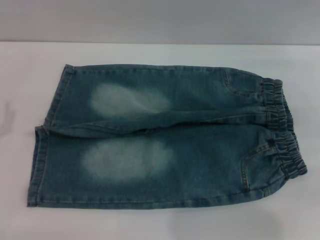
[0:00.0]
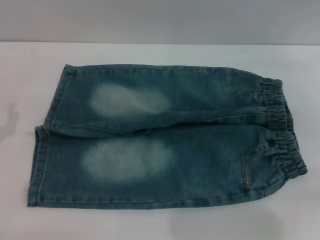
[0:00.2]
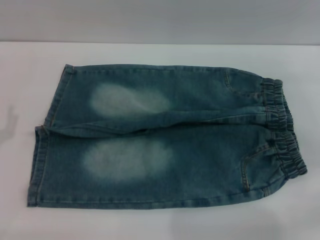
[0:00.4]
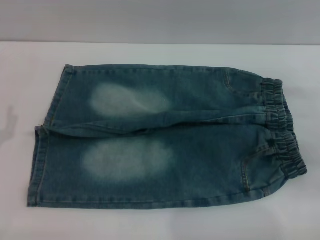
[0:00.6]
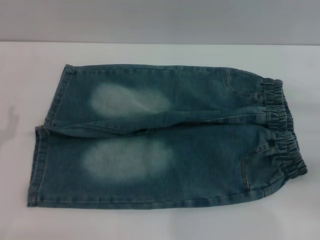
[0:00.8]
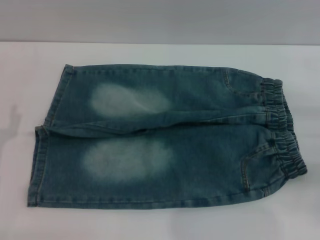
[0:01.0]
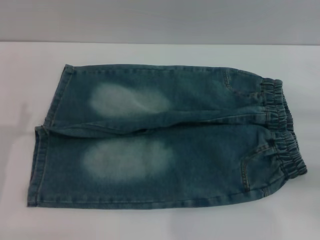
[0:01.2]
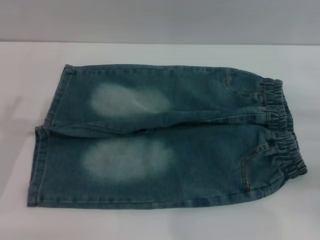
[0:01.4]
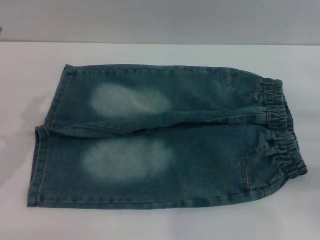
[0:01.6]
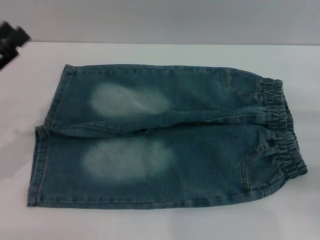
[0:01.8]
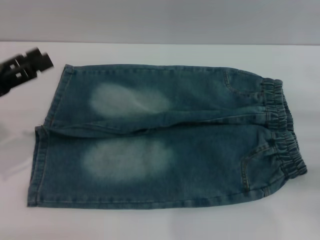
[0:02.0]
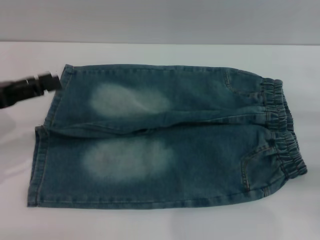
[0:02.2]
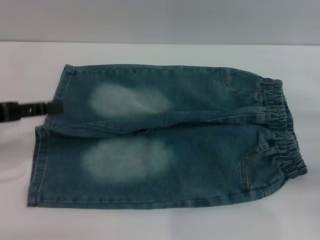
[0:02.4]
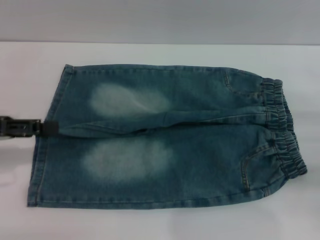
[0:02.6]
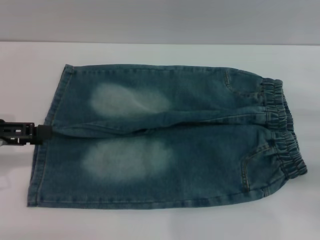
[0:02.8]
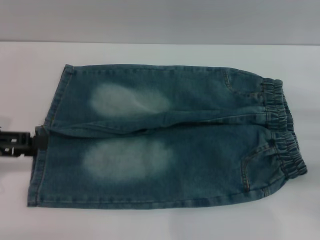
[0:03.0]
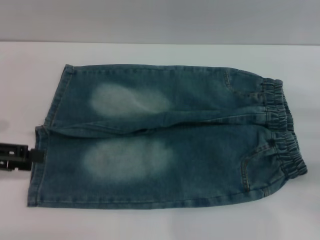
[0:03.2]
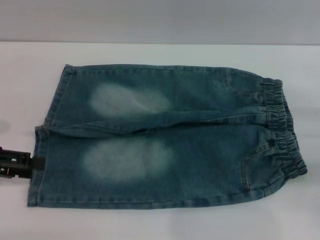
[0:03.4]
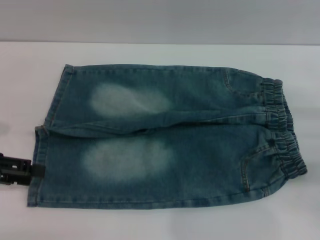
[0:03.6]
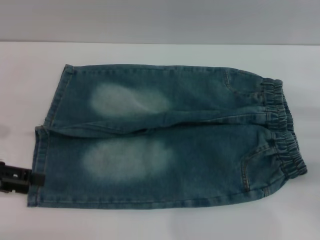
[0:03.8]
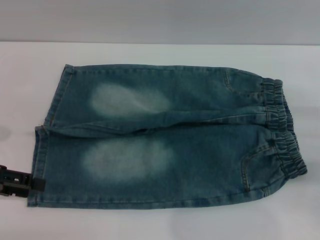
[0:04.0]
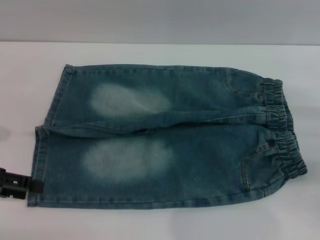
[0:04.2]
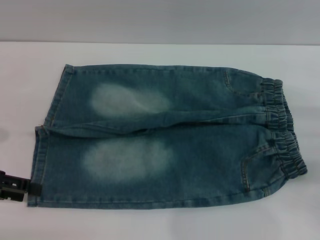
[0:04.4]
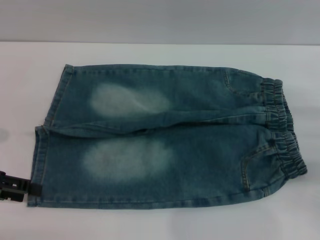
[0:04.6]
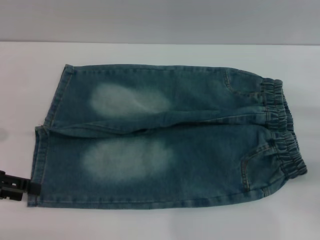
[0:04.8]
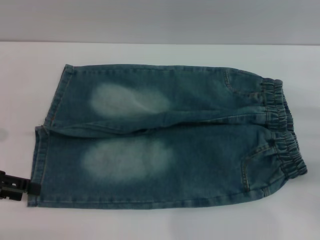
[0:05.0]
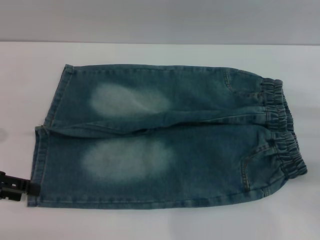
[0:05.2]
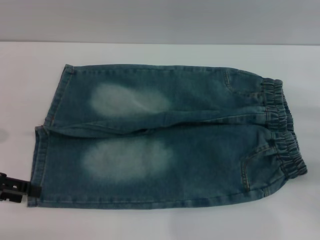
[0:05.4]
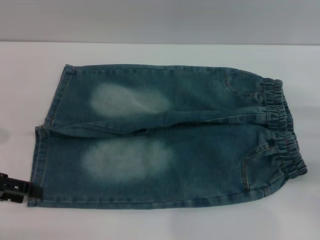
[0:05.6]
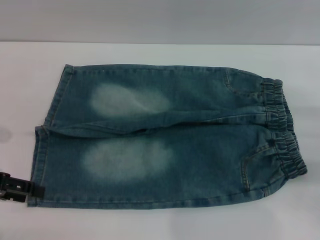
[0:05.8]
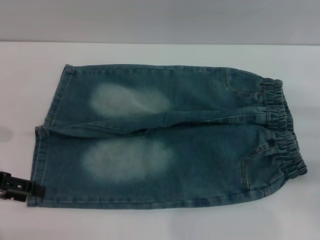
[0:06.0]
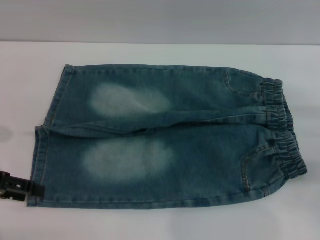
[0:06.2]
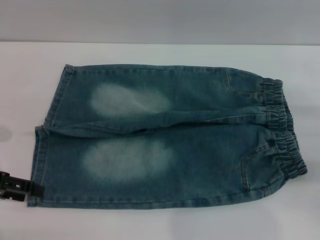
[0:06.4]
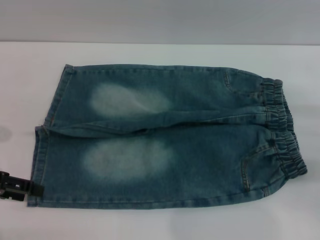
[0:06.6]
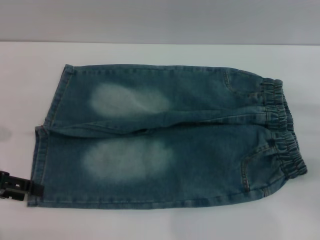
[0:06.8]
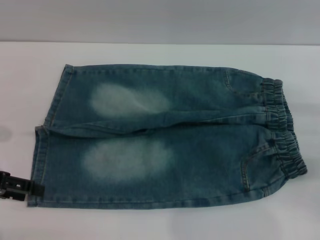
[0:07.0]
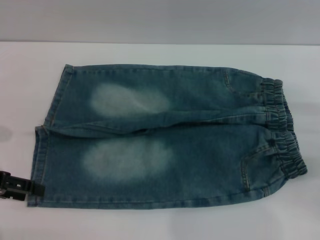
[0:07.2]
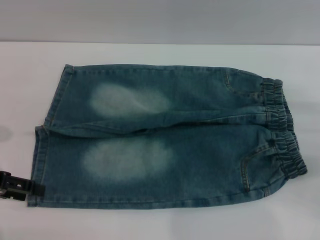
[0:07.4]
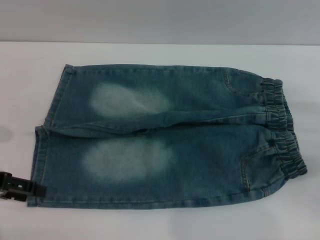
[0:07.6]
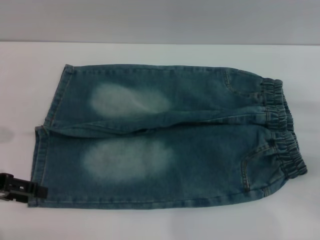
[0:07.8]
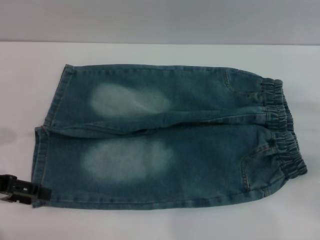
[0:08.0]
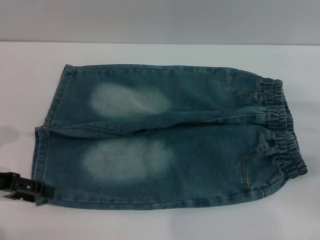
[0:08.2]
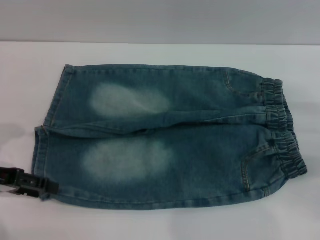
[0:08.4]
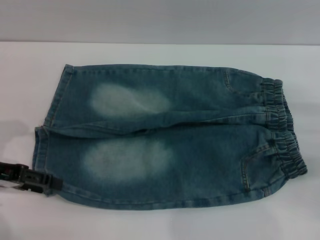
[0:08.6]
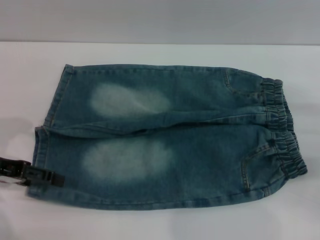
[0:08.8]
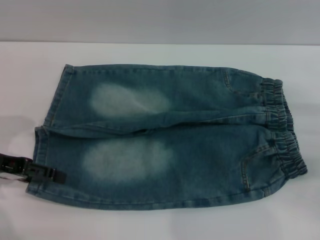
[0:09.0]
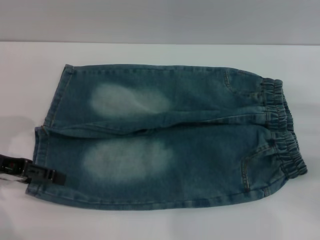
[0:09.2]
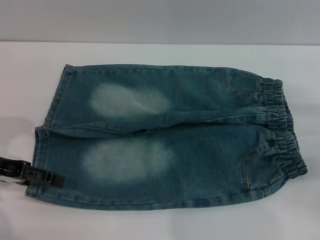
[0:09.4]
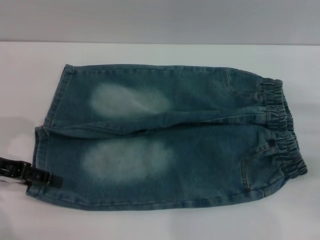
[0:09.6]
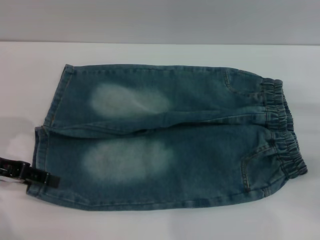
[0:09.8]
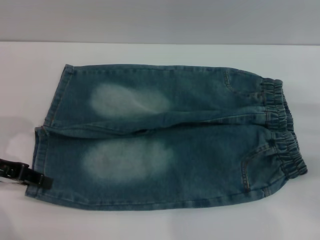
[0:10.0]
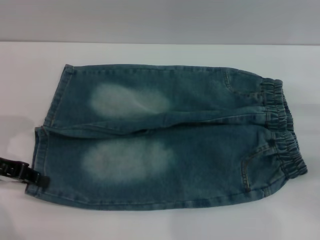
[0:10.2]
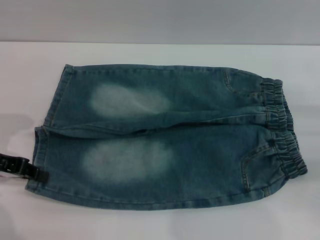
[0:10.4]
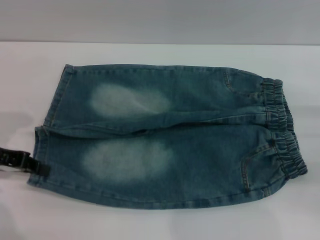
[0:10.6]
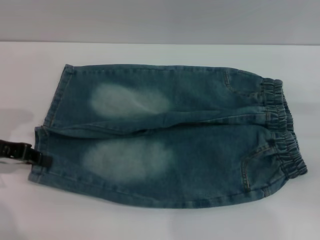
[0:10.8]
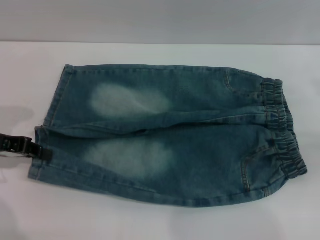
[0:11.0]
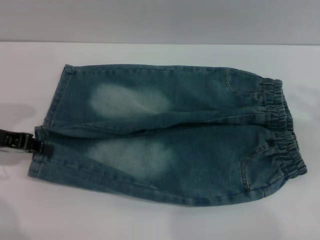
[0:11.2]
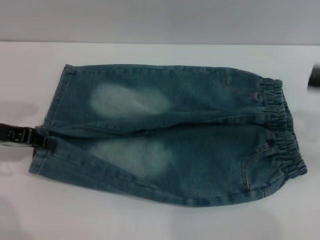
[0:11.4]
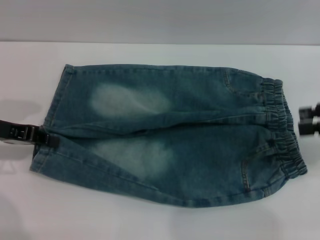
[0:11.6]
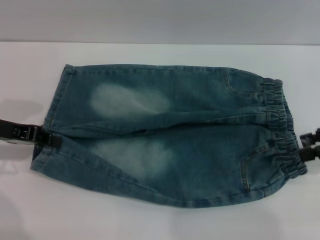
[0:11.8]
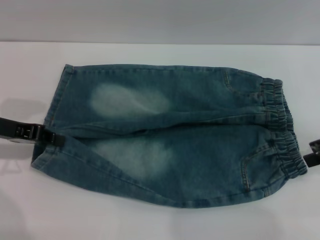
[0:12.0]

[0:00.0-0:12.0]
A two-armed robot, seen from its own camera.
Step, 0:00.0 to 0:10.4: Grasp the lower left leg of the shorts with left gripper.
0:00.0 to 0:01.6: The right gripper is displaced backward and downward by about 15 cm.
0:01.6 to 0:03.0: The left gripper moves roughly 5 cm.
0:03.0 to 0:04.4: There are only small adjustments of the grippers.
0:04.4 to 0:07.6: The two grippers keep their place.
0:07.6 to 0:09.0: The grippers stay close to where they were, moving slightly.
0:09.0 to 0:10.4: The left gripper closes its fingers.
0:10.4 to 0:12.0: The right gripper heads upward, covering some 10 cm.

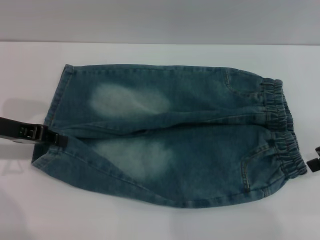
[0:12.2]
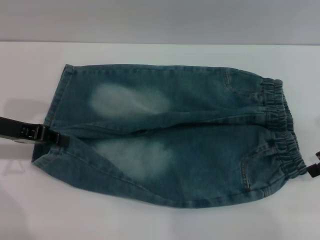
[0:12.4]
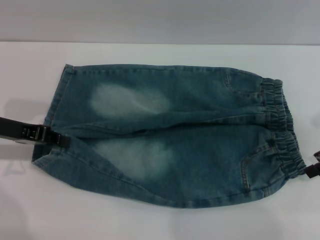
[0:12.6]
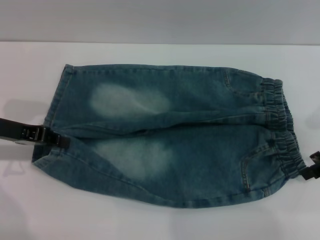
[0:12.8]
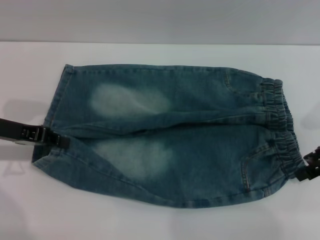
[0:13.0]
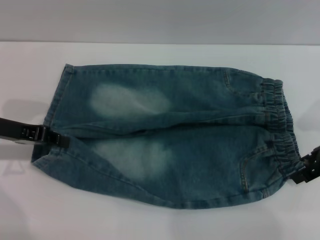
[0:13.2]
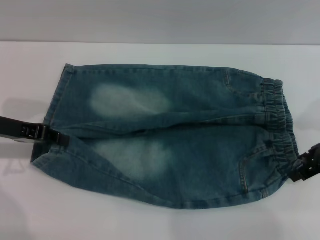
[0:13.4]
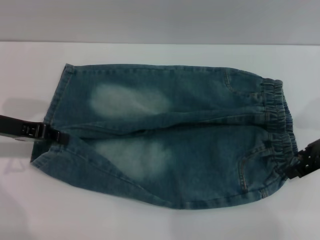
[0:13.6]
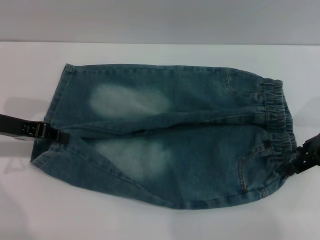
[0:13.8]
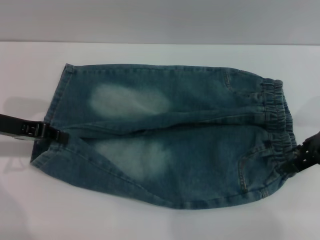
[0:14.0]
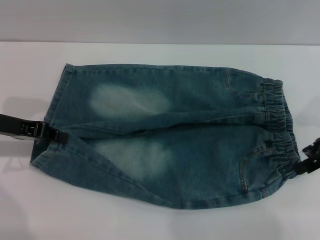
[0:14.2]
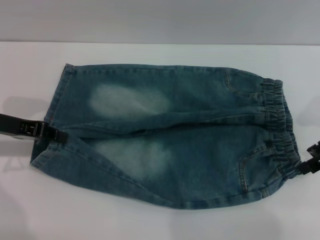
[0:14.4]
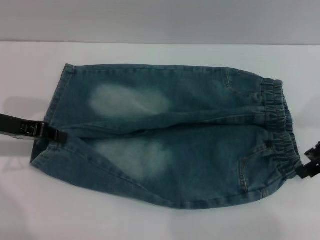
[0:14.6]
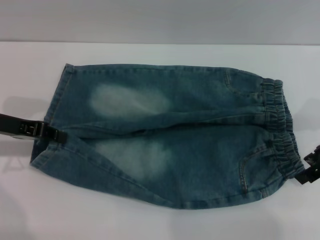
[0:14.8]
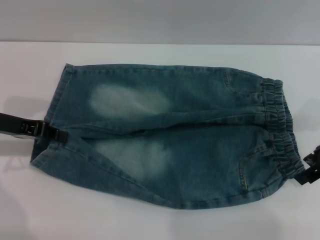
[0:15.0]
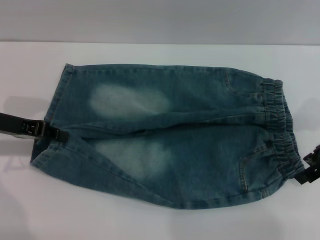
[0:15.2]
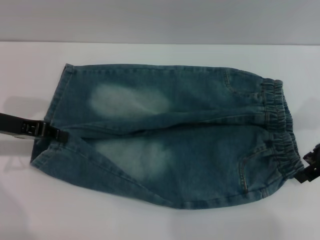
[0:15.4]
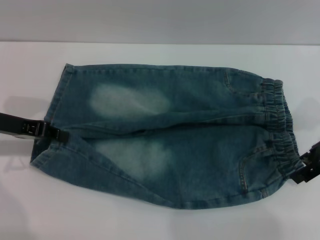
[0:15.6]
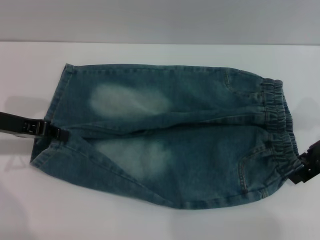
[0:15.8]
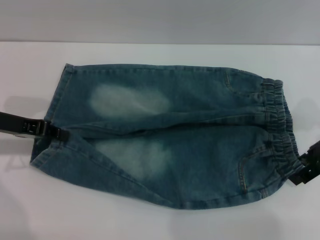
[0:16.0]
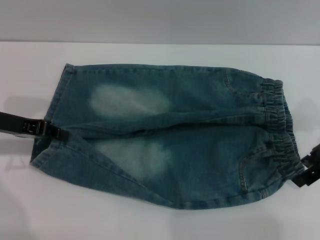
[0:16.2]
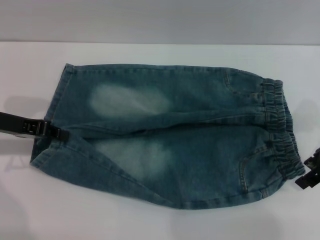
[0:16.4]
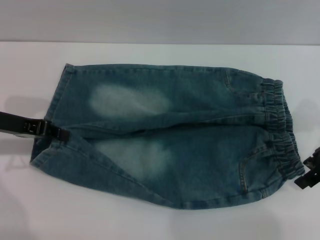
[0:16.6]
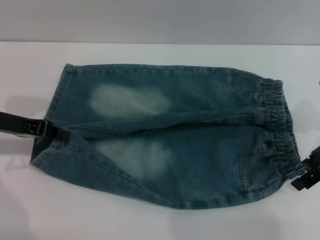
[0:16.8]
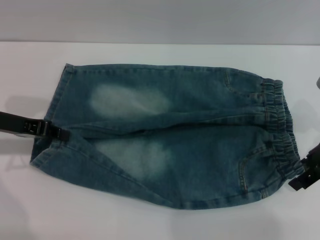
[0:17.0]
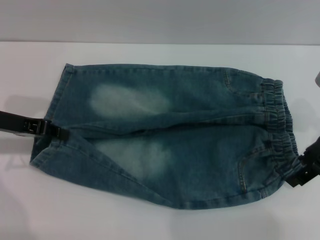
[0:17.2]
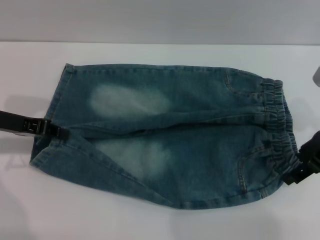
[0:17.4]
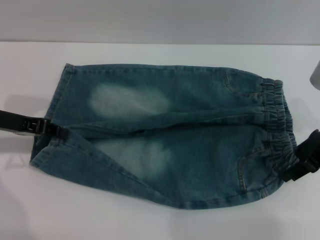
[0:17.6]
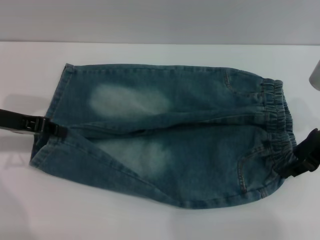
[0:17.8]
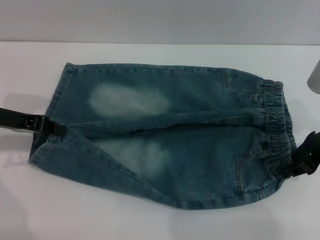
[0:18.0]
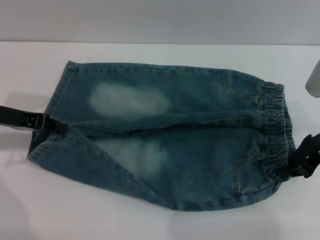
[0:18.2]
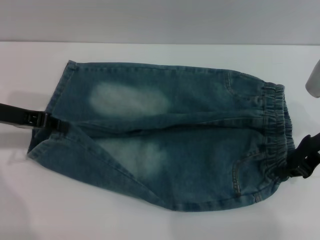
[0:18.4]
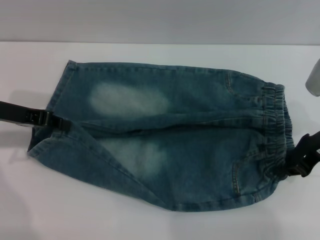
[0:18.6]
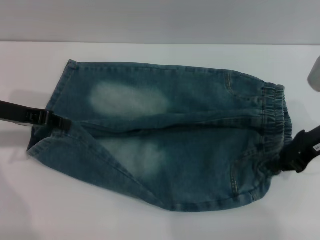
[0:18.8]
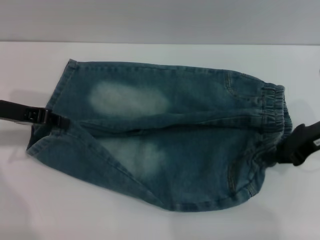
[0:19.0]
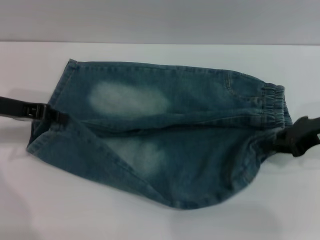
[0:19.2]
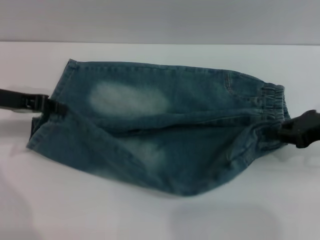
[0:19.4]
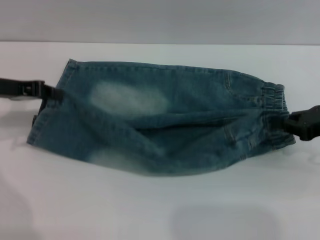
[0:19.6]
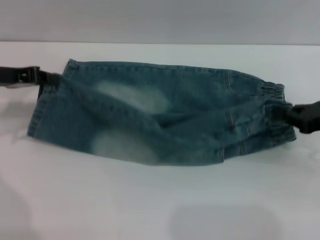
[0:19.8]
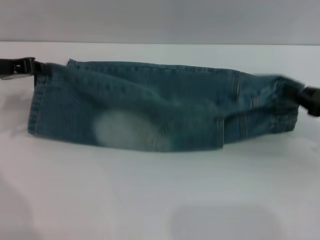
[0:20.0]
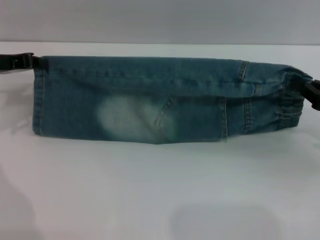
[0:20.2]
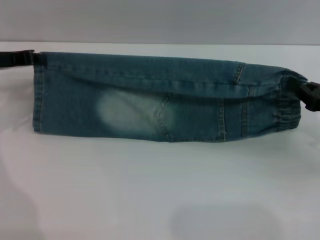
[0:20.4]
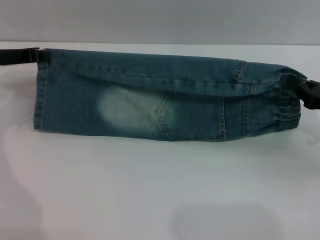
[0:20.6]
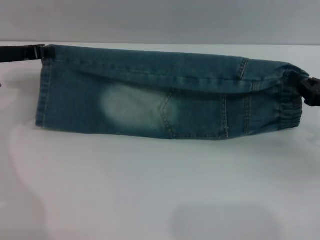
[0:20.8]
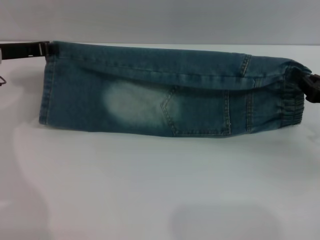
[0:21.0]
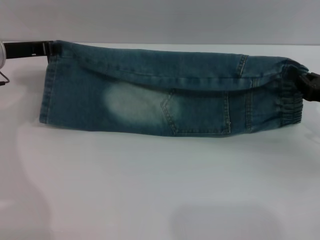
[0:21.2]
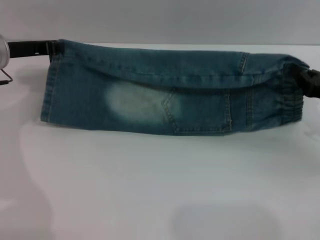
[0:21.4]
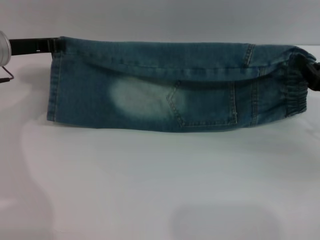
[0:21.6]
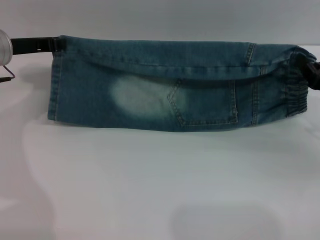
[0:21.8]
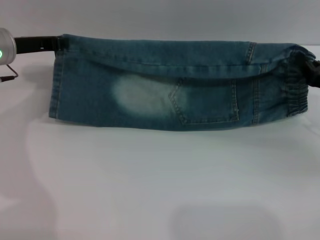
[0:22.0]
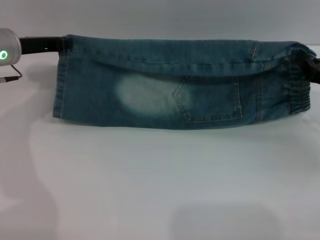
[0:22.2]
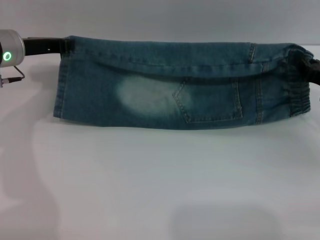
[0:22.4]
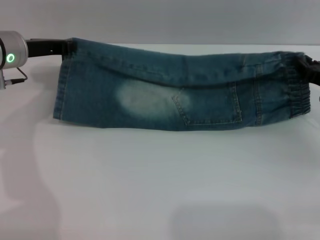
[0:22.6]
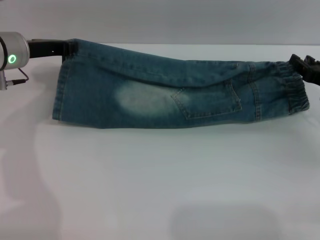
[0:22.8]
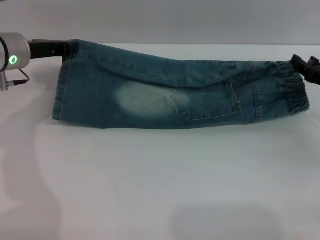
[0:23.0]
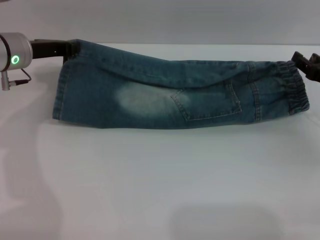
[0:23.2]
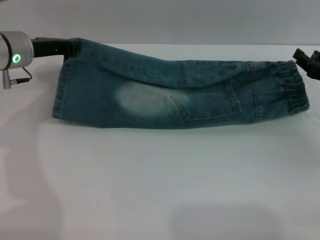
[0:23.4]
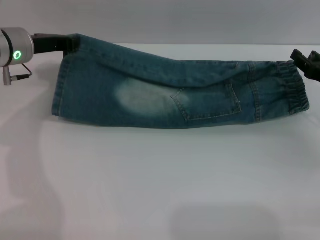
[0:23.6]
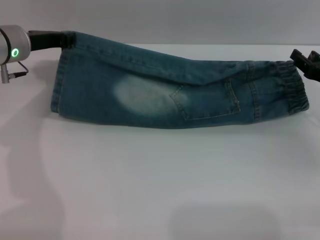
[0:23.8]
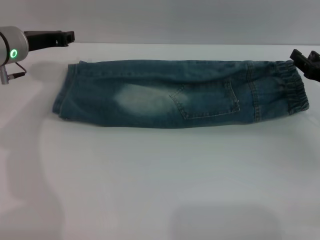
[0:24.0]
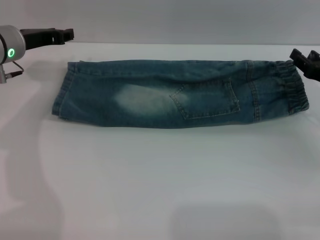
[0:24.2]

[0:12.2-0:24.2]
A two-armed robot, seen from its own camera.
Step, 0:12.2 to 0:18.6: Grasp the right lower side of the waistband of the shorts with right gripper.
Step, 0:18.8 to 0:24.0: Fold the bottom of the shorts upward with left gripper.
0:12.2 to 0:13.8: The right gripper moves about 5 cm.
0:13.8 to 0:15.2: The grippers move only a little.
0:15.2 to 0:16.6: Neither gripper changes place.
0:16.6 to 0:18.2: The right gripper closes its fingers.
0:18.2 to 0:19.8: The right gripper moves to the right, roughly 5 cm.
0:19.8 to 0:21.2: The left gripper moves some 5 cm.
0:21.2 to 0:22.6: The grippers make only small movements.
0:22.6 to 0:24.2: The right gripper opens up. Meanwhile the left gripper opens.
